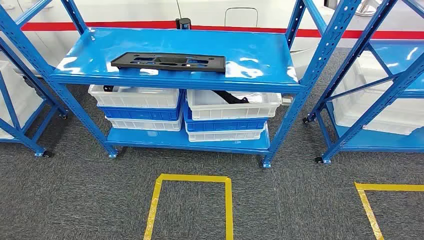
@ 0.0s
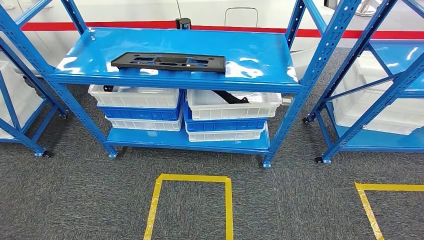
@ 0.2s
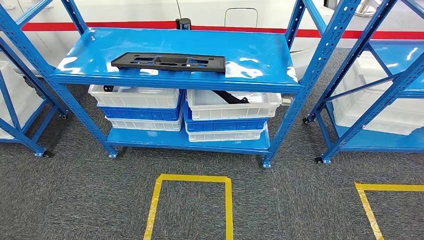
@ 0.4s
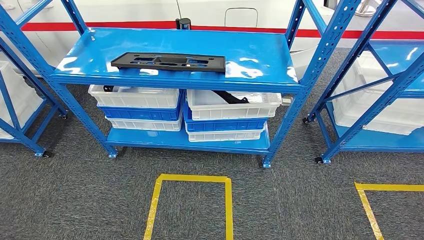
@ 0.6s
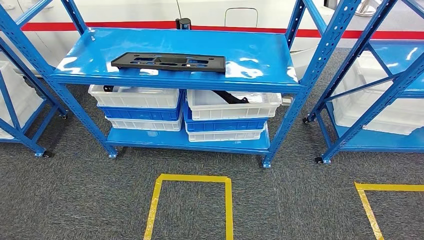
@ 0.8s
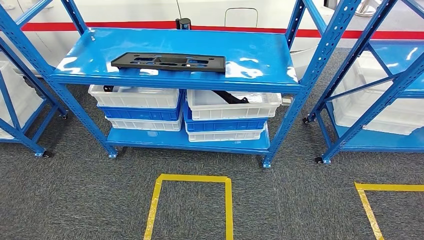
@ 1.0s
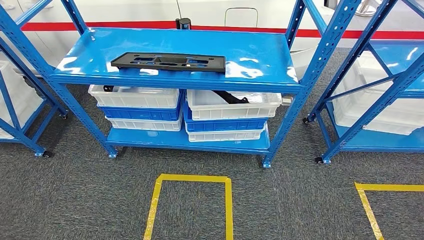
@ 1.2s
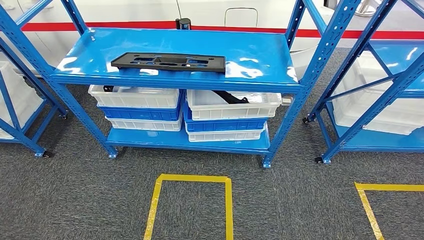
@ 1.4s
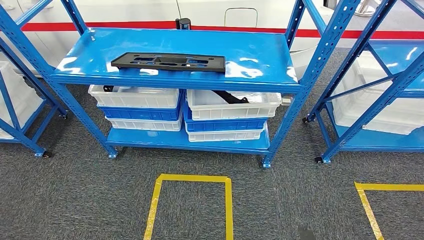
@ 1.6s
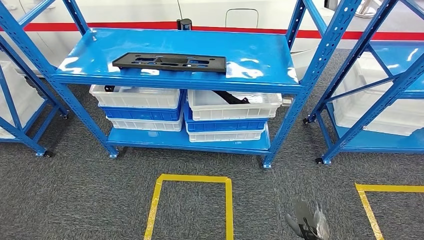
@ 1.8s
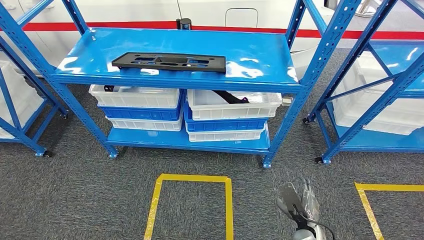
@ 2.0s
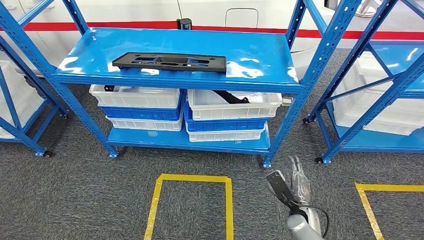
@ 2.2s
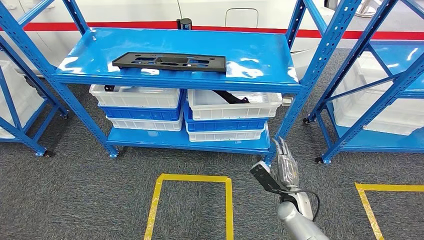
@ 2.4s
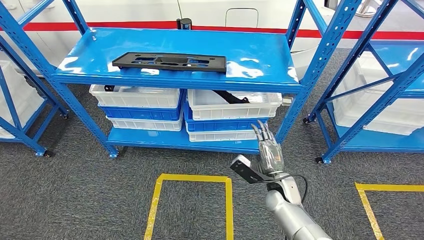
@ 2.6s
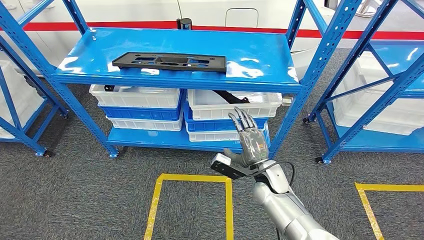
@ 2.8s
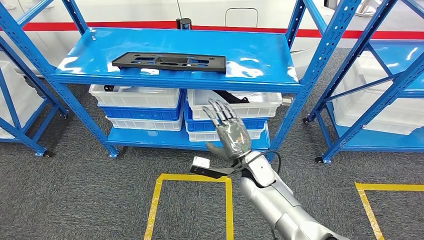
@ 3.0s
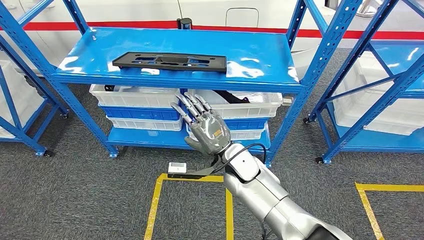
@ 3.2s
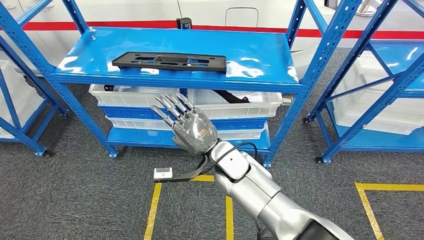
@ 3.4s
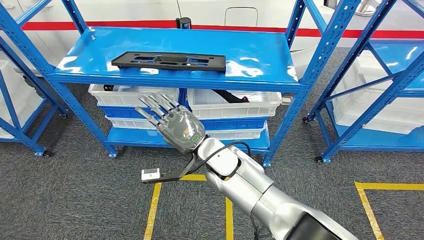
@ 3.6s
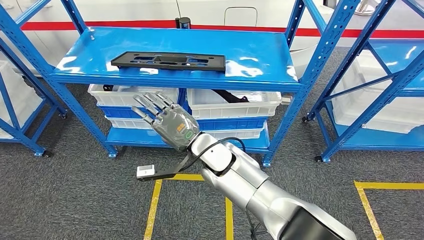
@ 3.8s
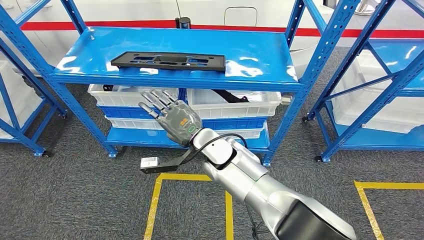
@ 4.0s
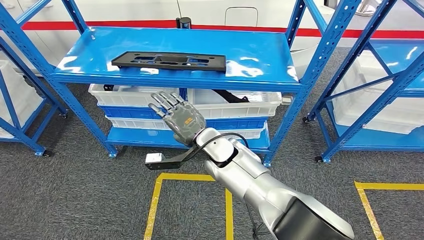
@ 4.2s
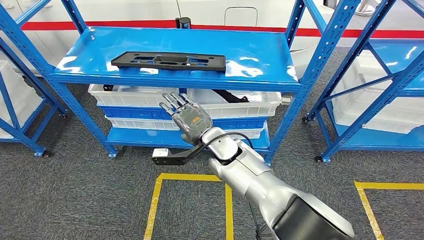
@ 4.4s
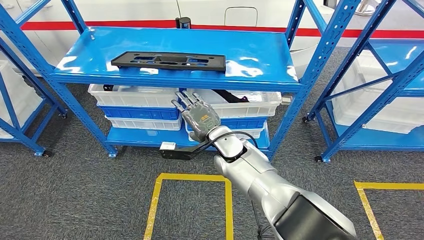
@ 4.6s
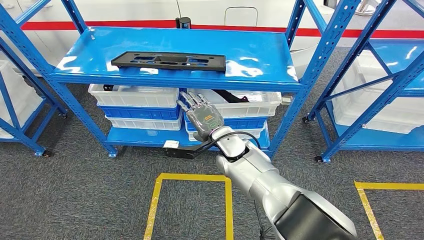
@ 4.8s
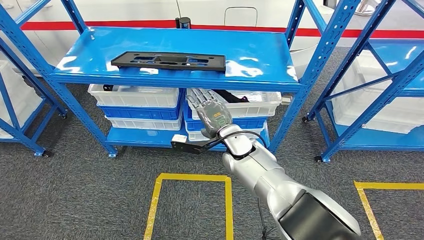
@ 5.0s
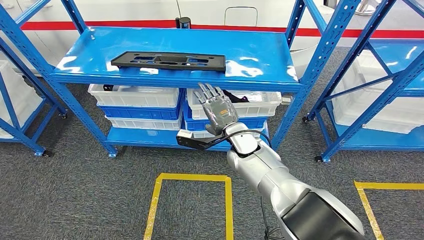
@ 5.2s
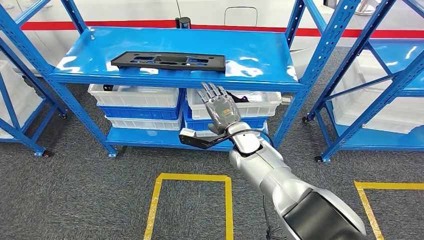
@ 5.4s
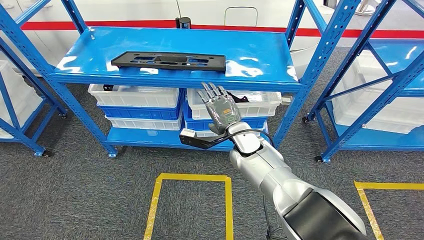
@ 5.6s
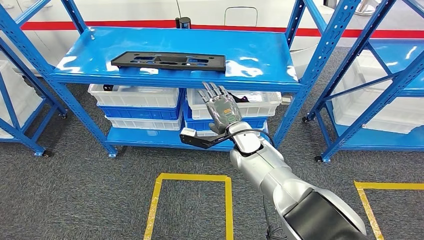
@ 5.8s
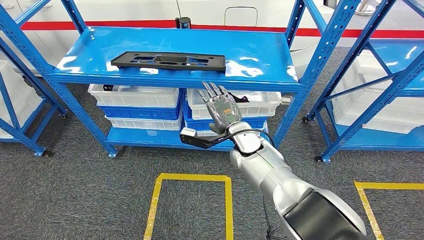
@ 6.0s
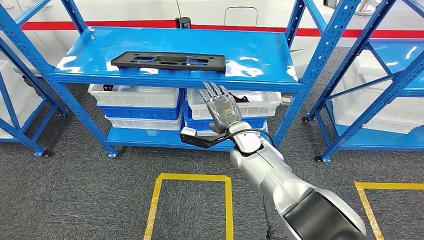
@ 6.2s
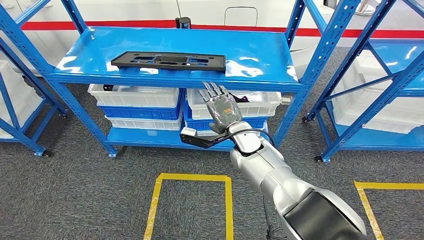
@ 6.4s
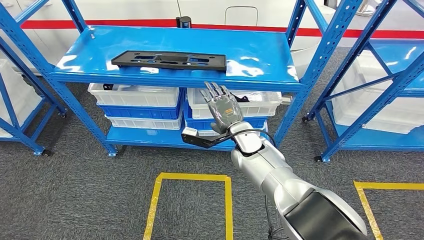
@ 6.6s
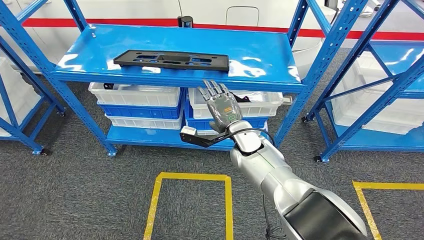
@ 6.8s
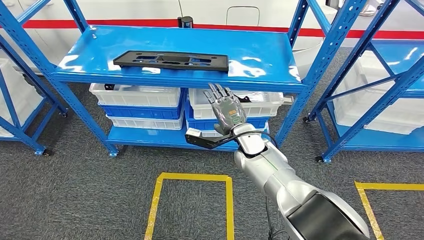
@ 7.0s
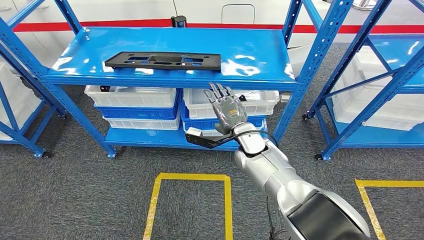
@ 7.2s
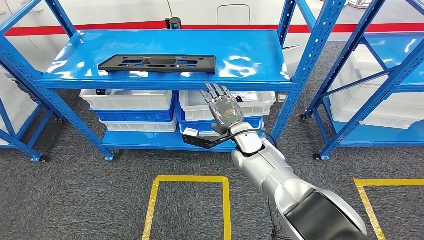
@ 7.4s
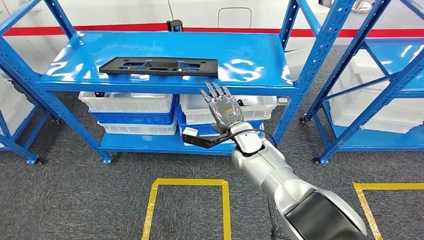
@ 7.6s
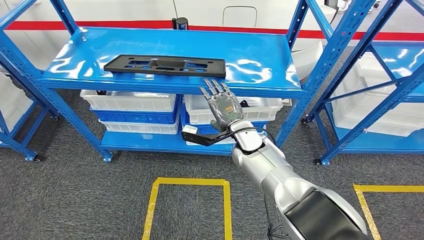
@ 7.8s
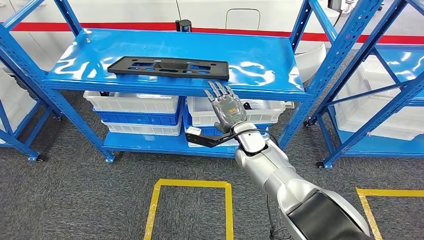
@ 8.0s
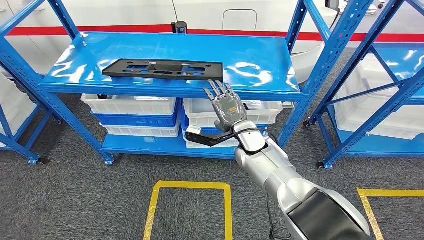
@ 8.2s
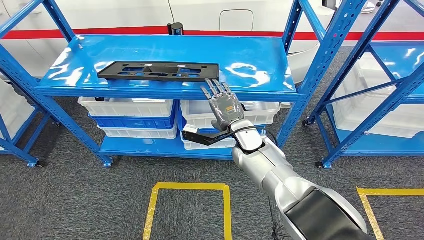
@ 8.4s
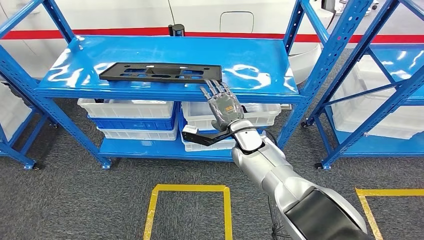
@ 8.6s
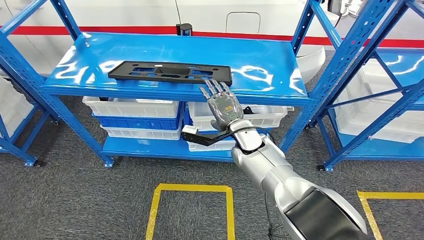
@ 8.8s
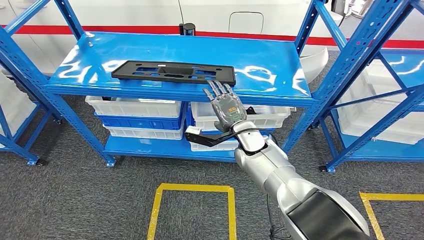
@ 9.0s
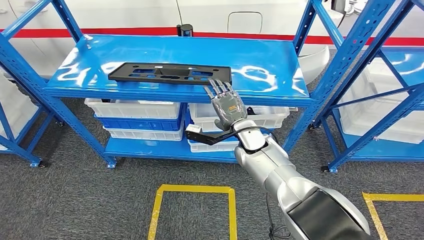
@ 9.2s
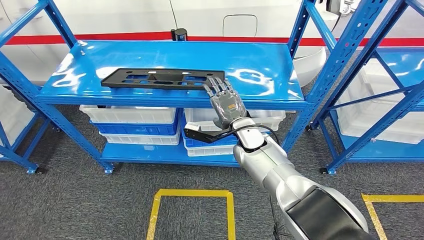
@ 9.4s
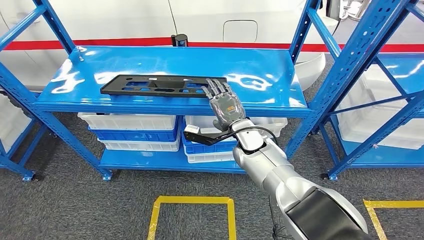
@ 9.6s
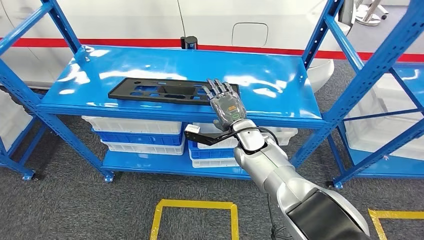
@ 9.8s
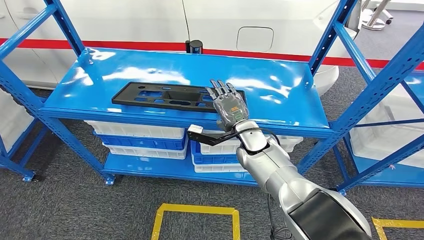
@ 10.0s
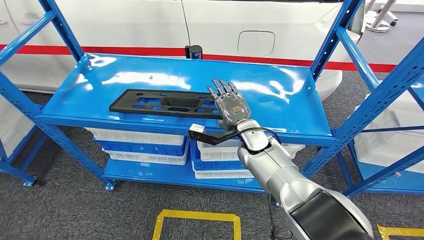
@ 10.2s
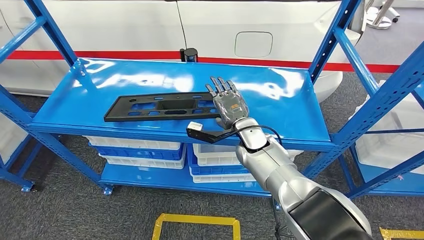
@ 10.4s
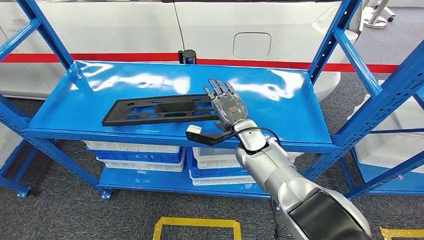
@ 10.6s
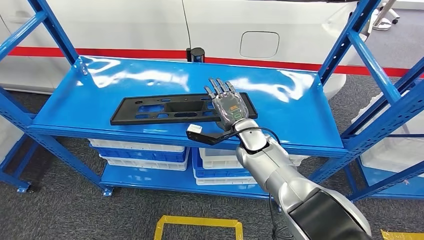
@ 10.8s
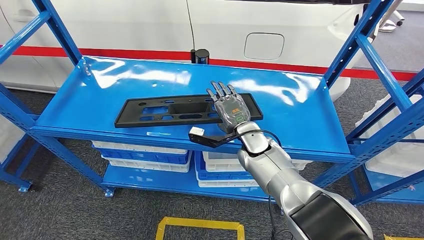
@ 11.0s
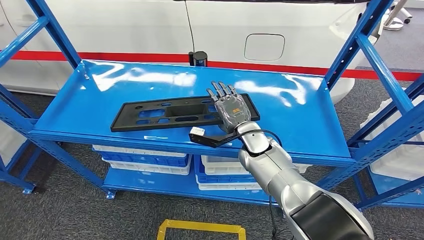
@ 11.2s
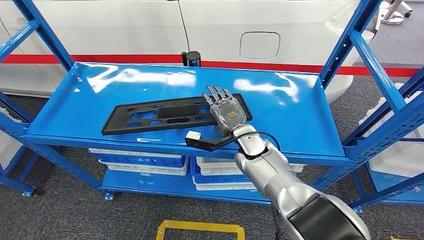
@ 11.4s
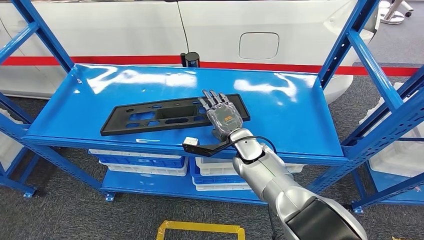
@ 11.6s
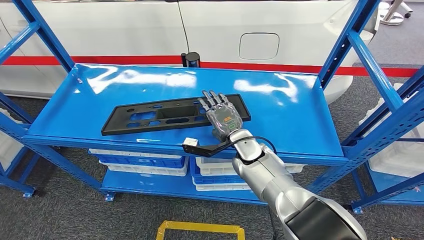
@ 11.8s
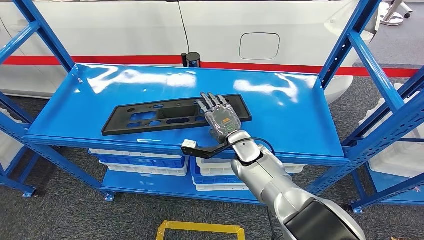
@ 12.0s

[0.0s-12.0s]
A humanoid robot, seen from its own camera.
1.6s to 3.0s: The right hand shifts some 40 cm forward, upward and to the left.
3.0s to 4.4s: The right hand is displaced to the left and upward by some 10 cm.
4.4s to 6.0s: The right hand heads to the right, covering about 5 cm.

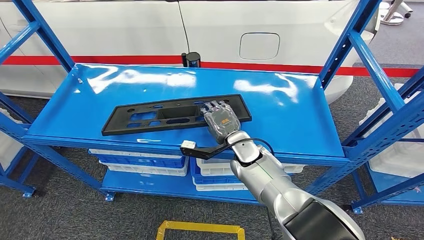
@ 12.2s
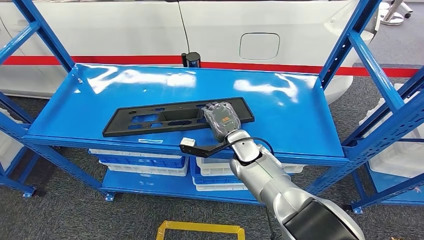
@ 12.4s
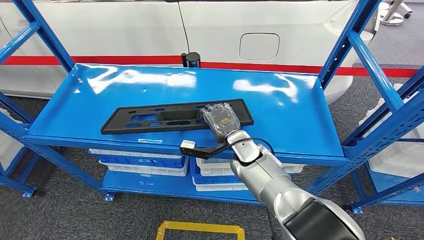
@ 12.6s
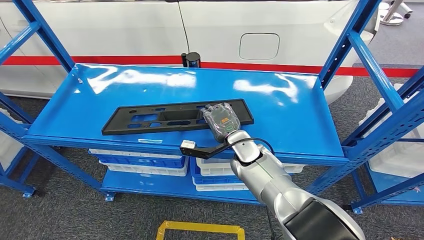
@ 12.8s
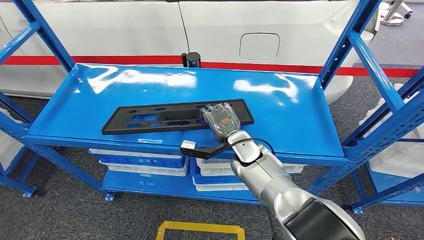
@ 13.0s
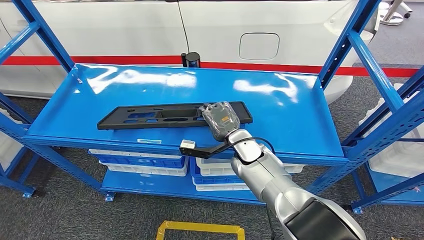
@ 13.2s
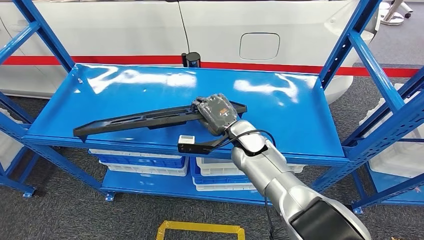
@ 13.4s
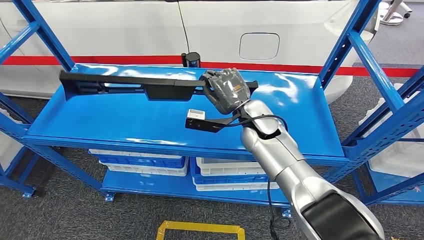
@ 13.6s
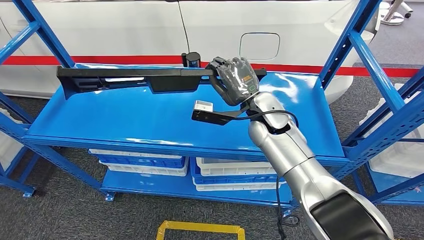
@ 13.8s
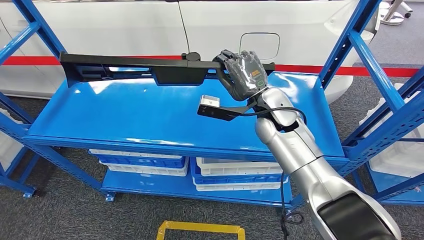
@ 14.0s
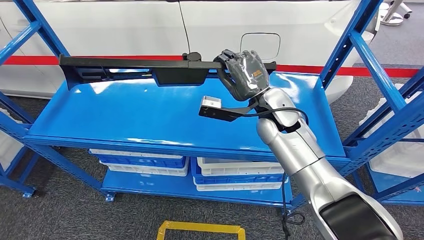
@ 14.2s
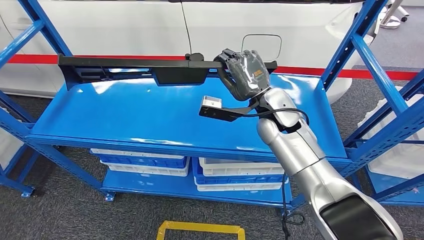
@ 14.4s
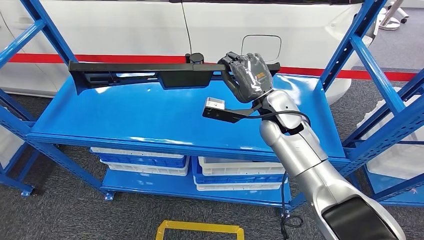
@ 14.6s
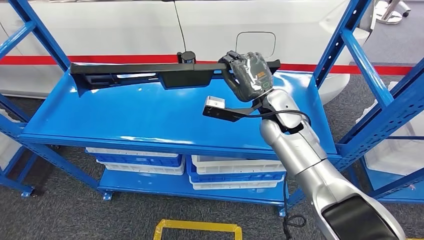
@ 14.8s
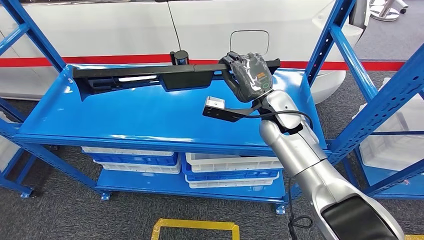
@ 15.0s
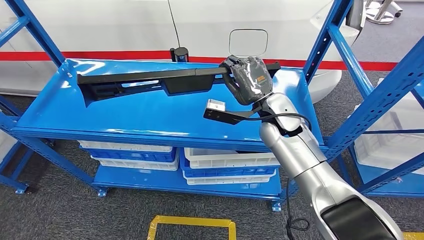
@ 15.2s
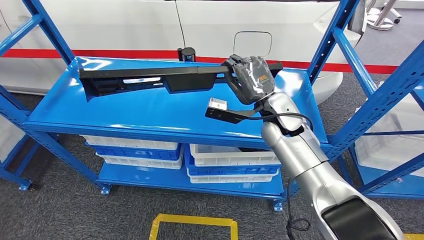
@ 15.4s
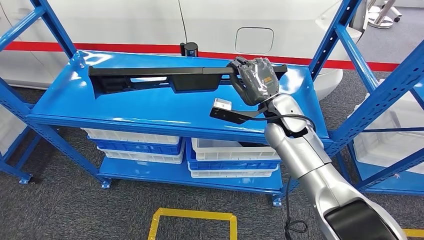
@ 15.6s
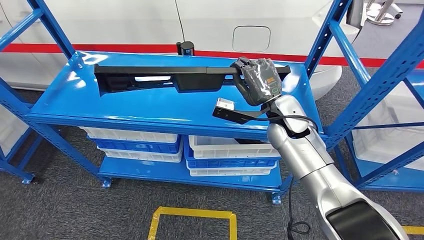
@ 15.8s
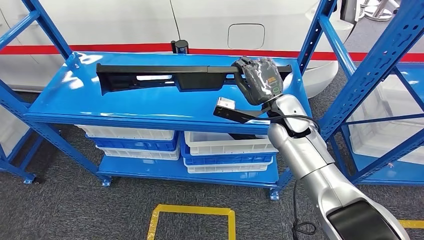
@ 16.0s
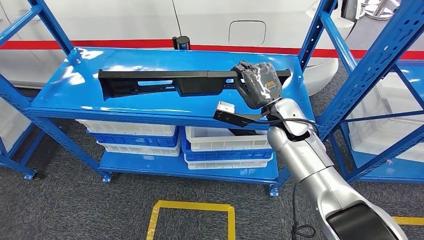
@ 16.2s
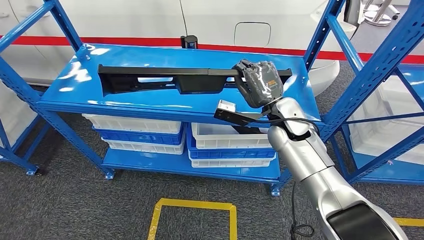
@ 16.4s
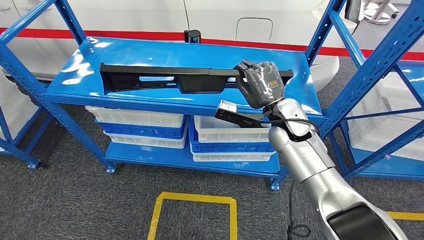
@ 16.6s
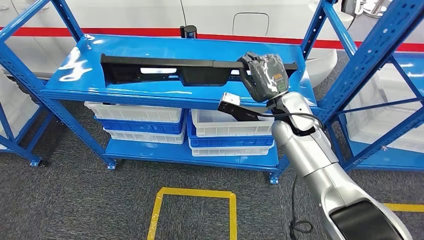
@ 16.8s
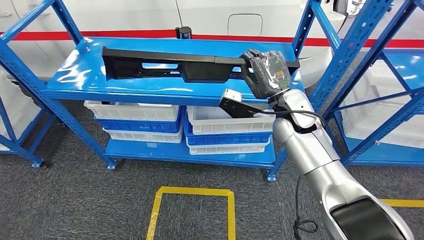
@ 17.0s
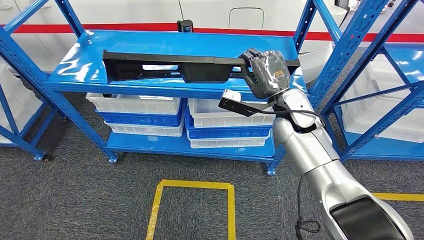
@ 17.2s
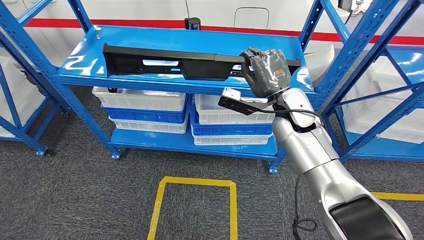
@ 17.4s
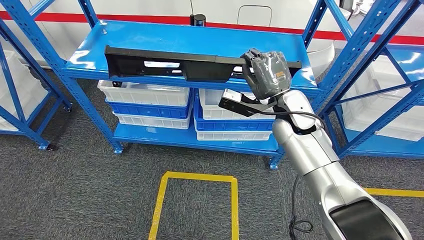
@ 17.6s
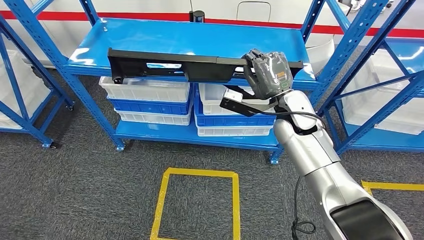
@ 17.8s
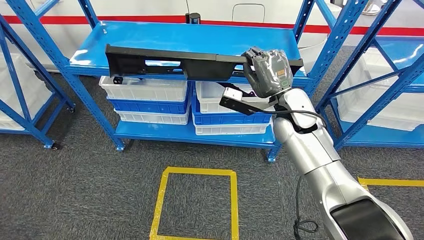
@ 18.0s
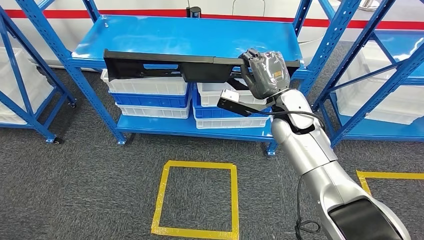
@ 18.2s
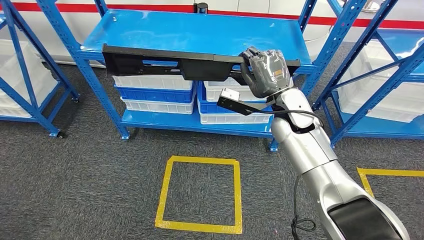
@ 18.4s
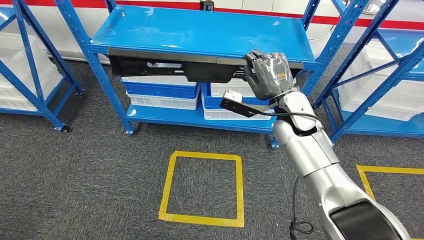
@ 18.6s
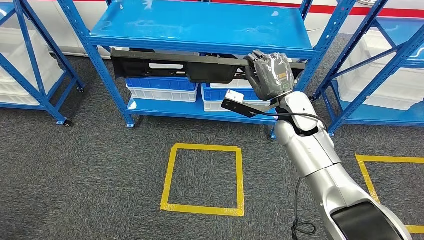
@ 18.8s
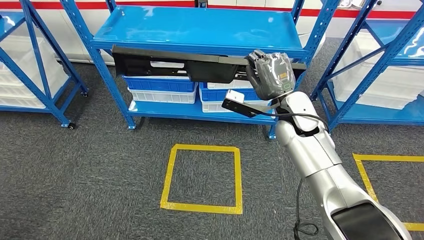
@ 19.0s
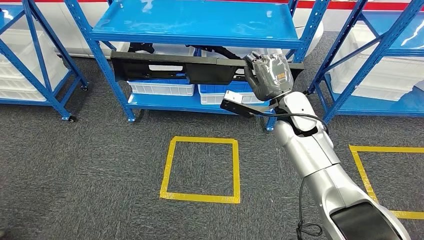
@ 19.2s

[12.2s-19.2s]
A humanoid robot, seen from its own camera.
12.2s to 13.6s: The right hand travels upward by about 10 cm.
